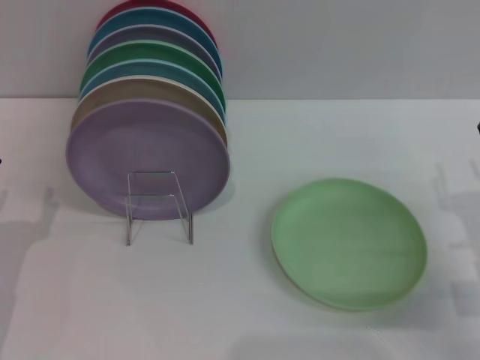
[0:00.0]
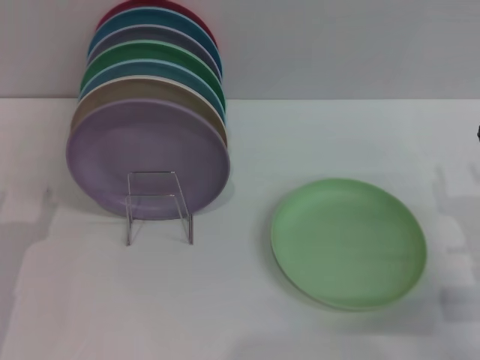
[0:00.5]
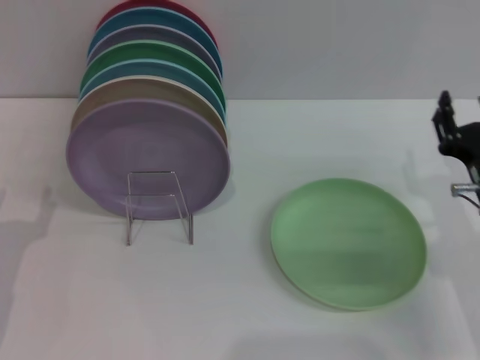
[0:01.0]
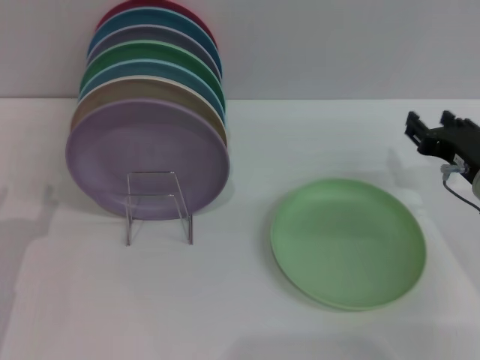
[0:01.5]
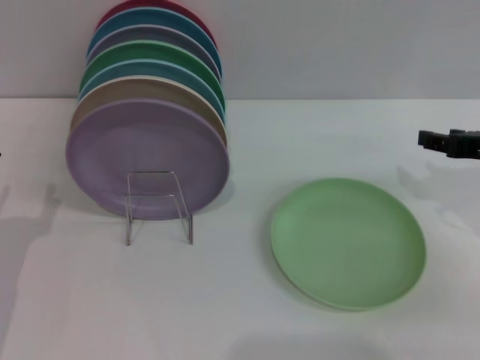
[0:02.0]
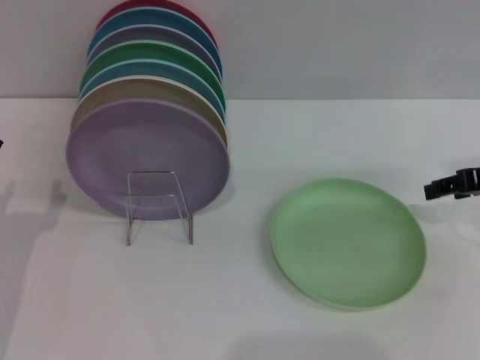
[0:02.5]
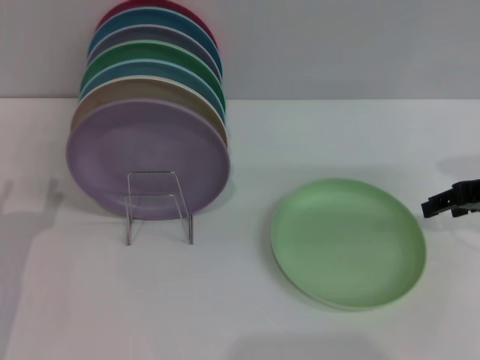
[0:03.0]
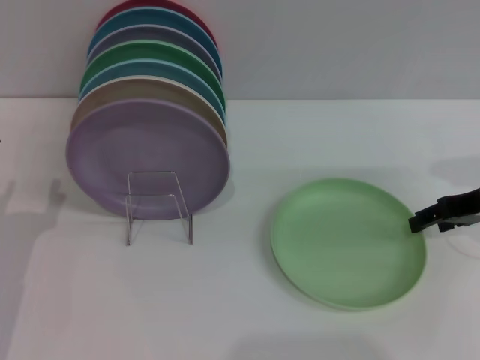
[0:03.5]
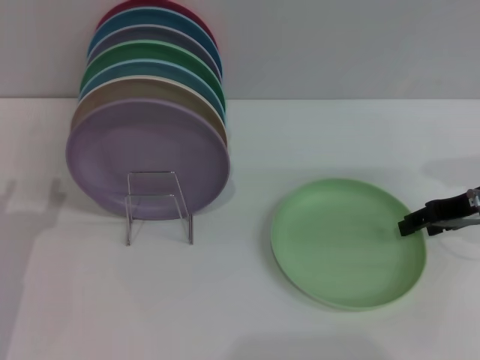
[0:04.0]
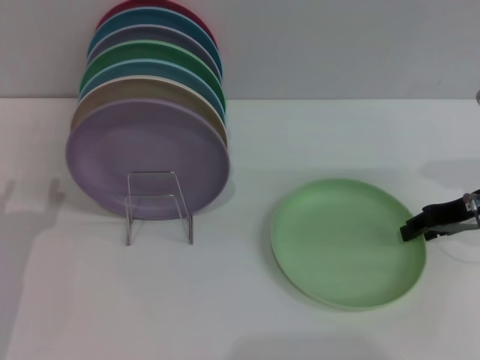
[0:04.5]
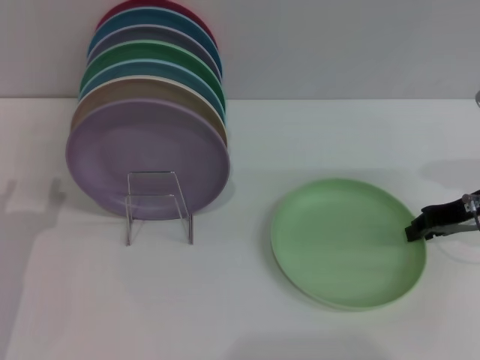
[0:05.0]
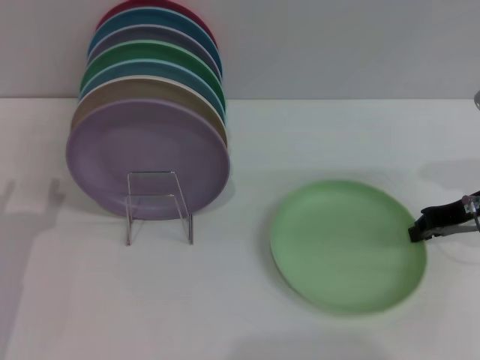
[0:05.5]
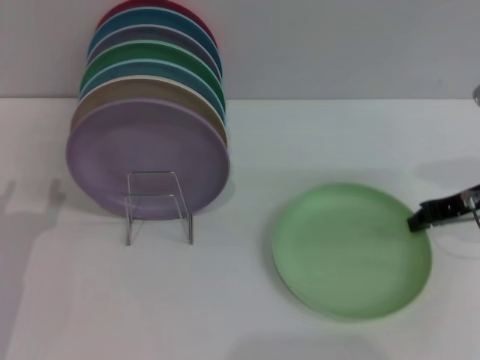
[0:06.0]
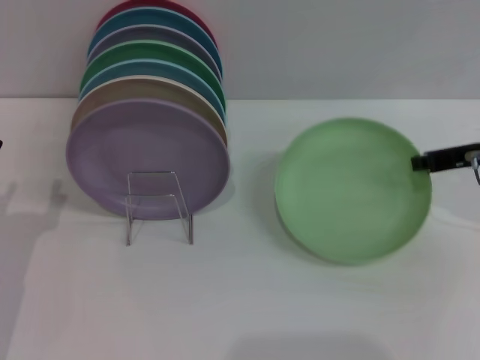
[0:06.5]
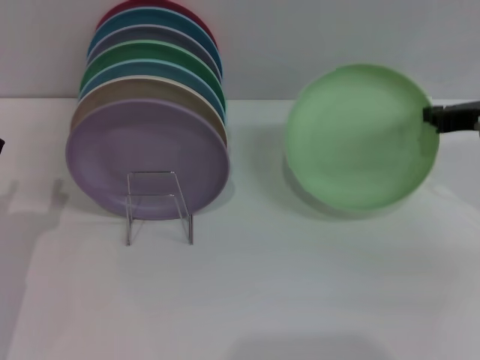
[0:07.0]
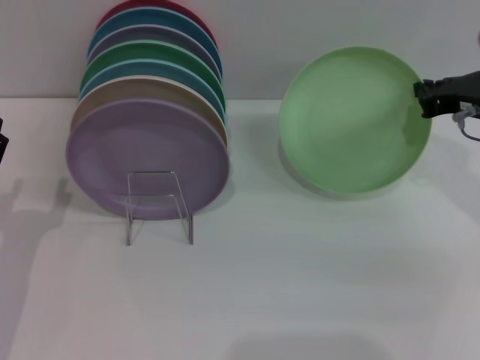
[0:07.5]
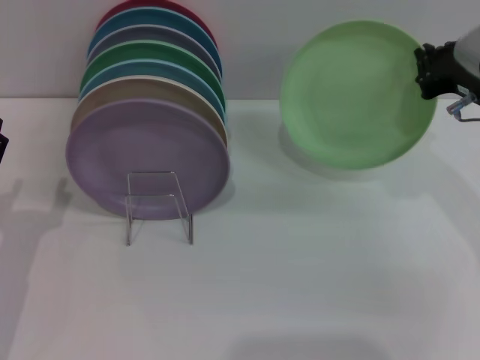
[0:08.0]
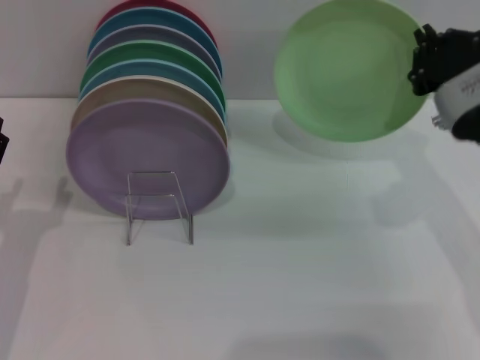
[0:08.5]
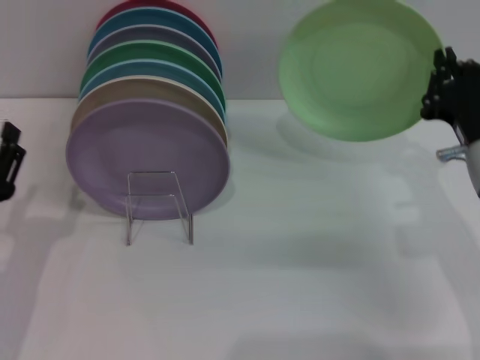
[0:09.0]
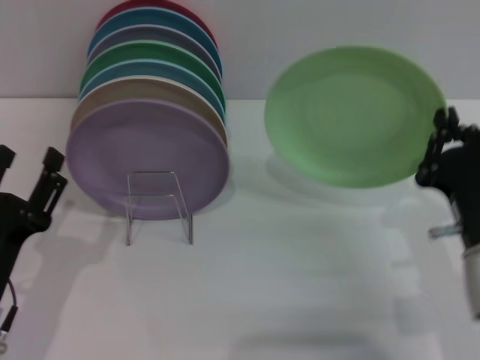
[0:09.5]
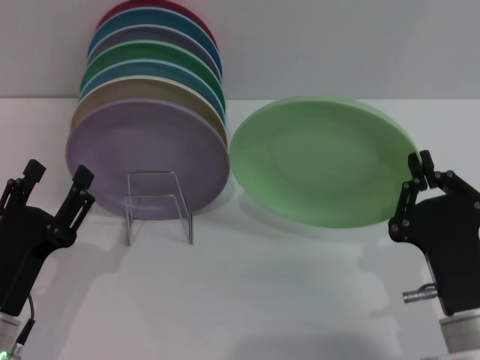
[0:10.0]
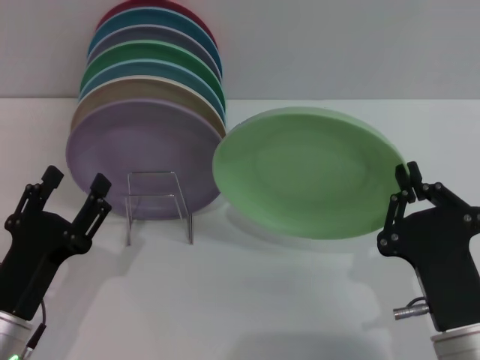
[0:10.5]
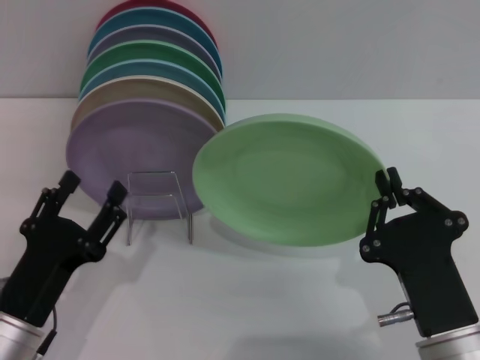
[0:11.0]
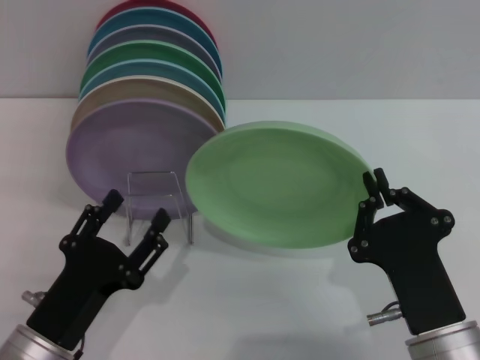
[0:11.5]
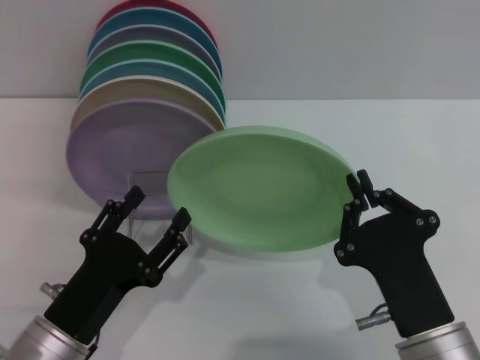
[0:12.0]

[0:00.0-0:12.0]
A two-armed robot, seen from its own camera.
Task of the whole recording: Grip the plate with one hand, pass it to the other, then set it on the shelf.
Step, 0:00.0 to 0:08.5: Pick up the plate with the right gripper.
0:00.0 to 0:02.0: The right gripper moves upward and forward, some 10 cm.
0:04.0 to 0:06.0: The right gripper closes up.
0:06.0 to 0:08.0: The right gripper changes place by roughly 5 cm.
0:08.0 to 0:10.0: The left gripper moves roughly 5 cm; the right gripper moves backward, downward and to the left, about 25 cm.

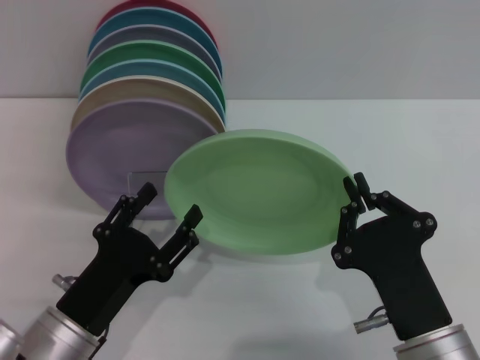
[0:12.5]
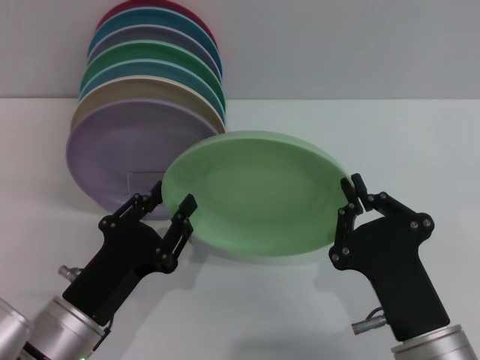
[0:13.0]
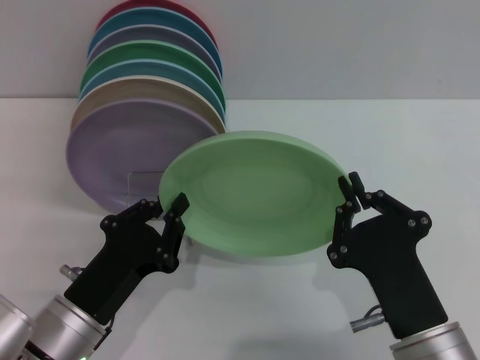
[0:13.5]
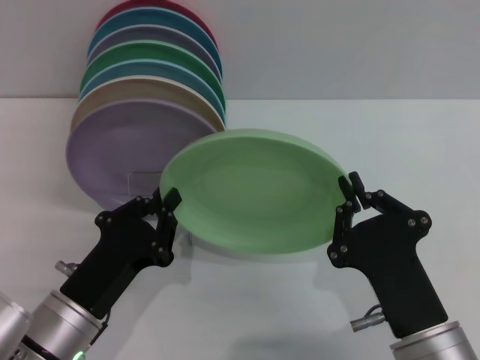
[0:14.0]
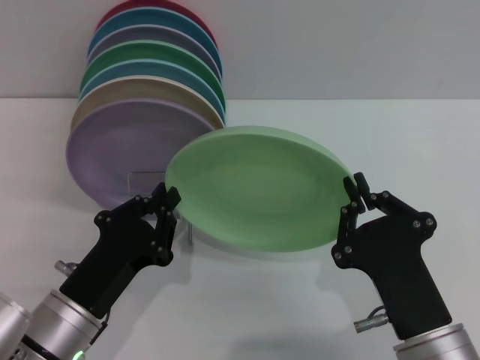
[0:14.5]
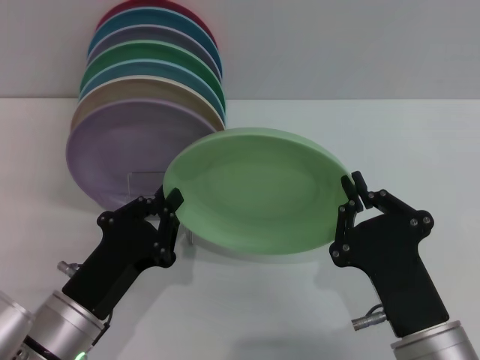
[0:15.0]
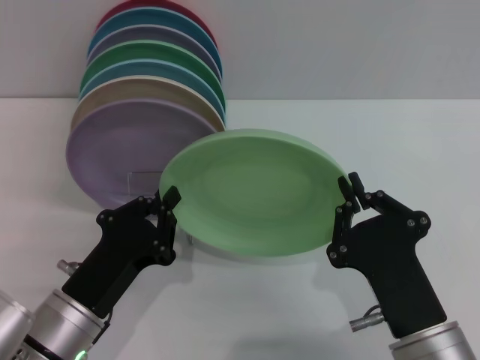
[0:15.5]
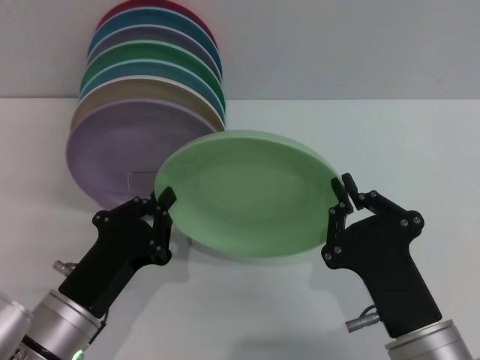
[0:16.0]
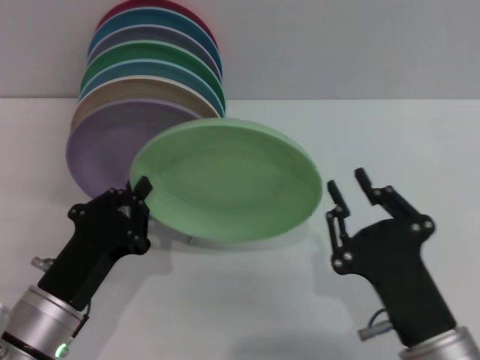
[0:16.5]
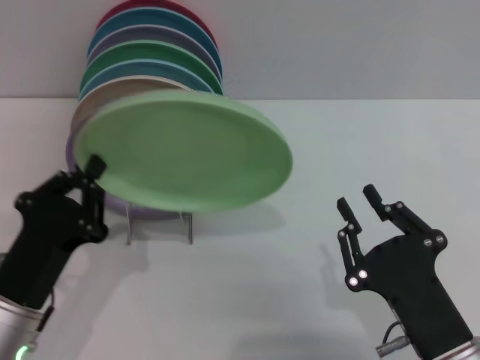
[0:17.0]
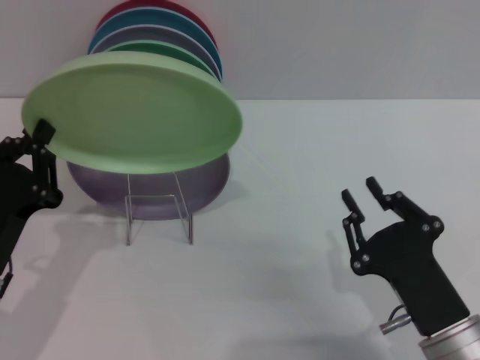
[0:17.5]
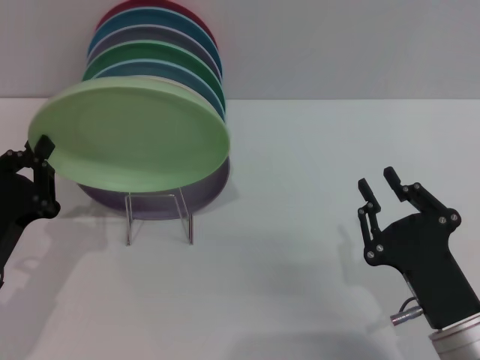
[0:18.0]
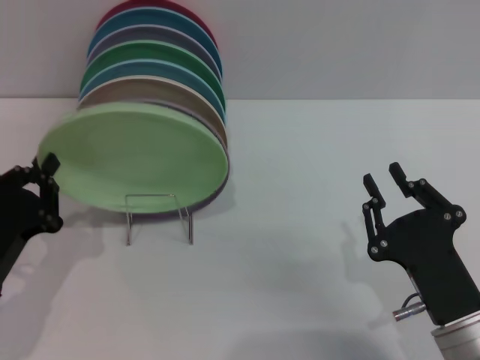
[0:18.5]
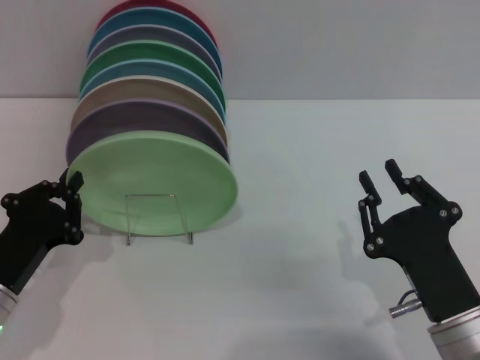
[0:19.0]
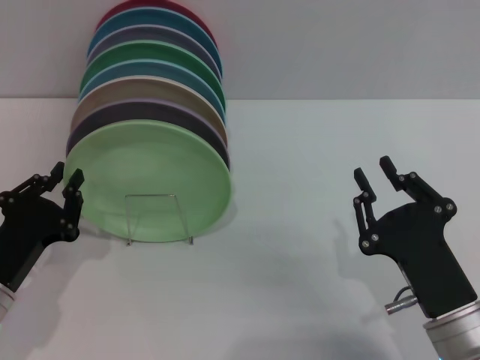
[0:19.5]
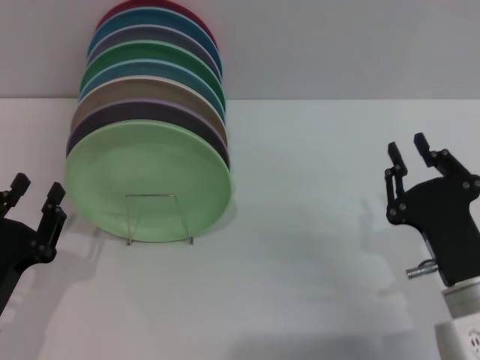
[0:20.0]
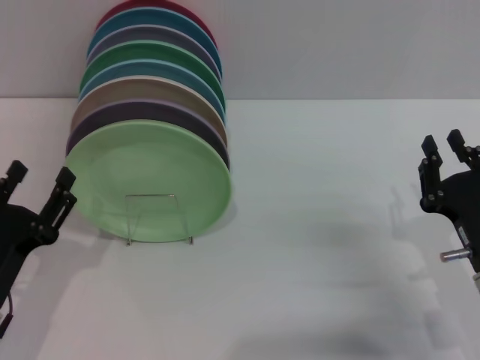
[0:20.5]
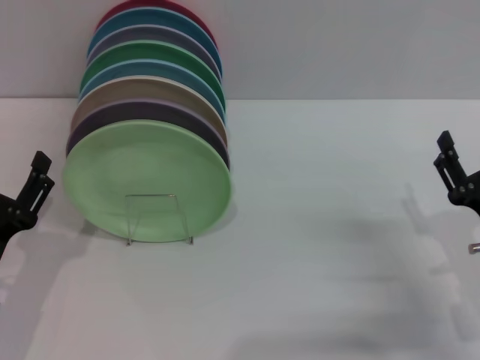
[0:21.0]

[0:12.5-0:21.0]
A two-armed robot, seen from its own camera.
Task of the whole recording: Grip the plate with one hand, pass it to the other, then set it on the shelf.
Step, 0:12.5 to 0:16.5: Pass the plate from the right gripper to the left gripper.
Step, 0:17.0 to 0:19.5: Place the plate on the shelf with the left gripper.
0:12.5 to 0:14.5: The left gripper closes.
0:14.5 to 0:16.5: The right gripper opens.
0:16.5 to 0:19.0: The left gripper moves to the left, some 5 cm.
0:19.0 to 0:21.0: The right gripper is displaced to the right and forward by some 10 cm; the left gripper opens.
